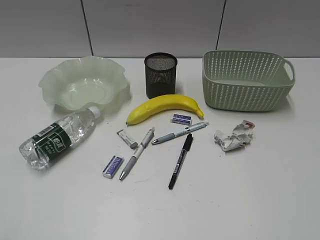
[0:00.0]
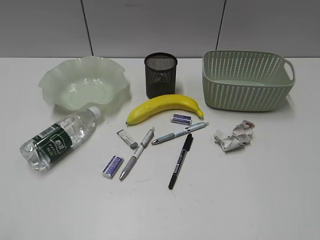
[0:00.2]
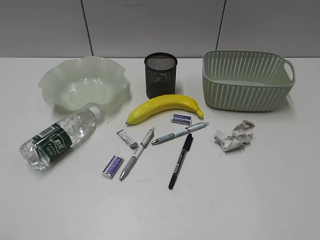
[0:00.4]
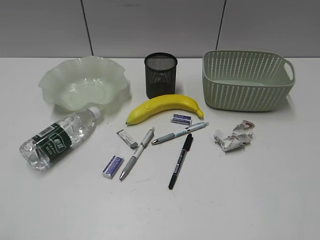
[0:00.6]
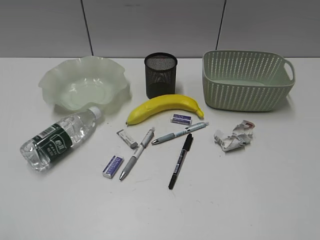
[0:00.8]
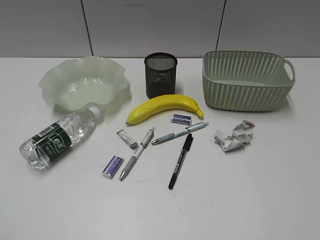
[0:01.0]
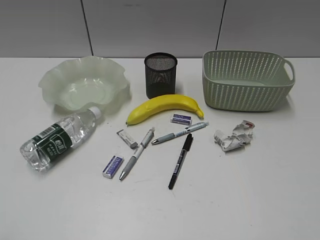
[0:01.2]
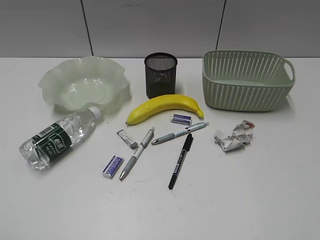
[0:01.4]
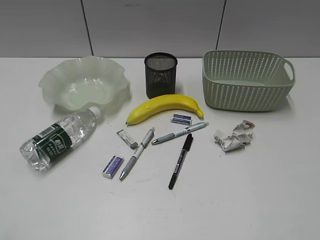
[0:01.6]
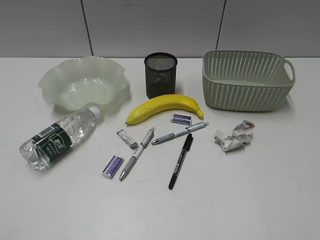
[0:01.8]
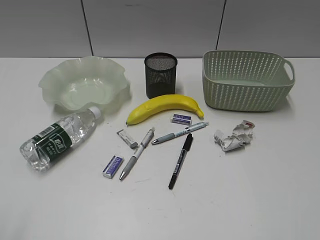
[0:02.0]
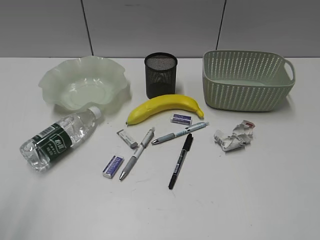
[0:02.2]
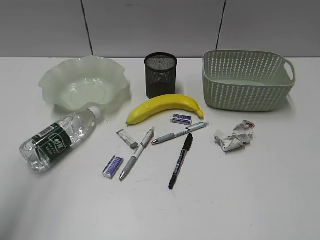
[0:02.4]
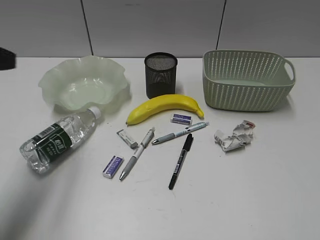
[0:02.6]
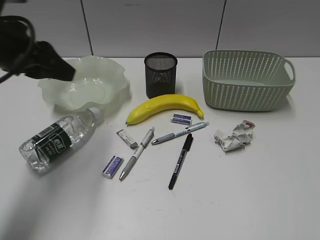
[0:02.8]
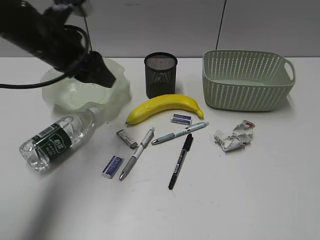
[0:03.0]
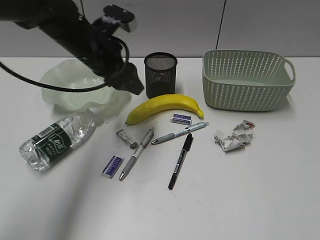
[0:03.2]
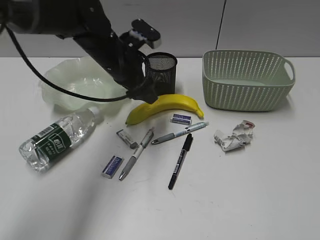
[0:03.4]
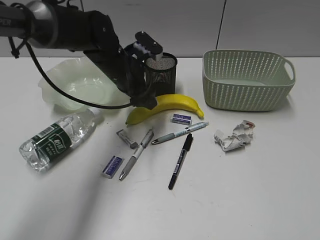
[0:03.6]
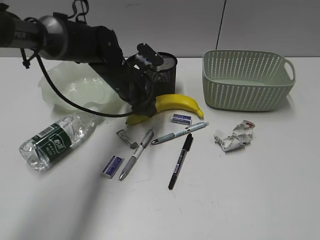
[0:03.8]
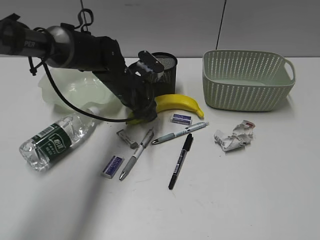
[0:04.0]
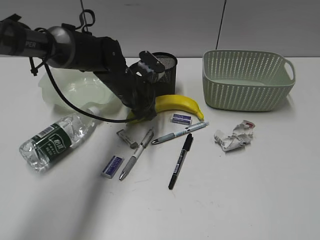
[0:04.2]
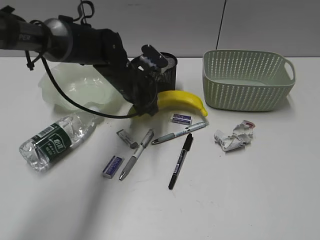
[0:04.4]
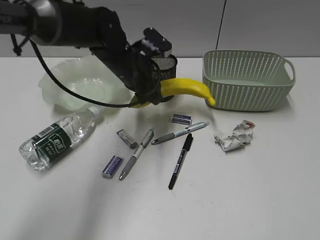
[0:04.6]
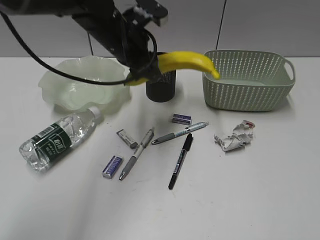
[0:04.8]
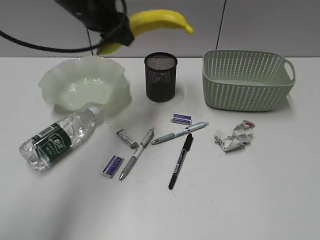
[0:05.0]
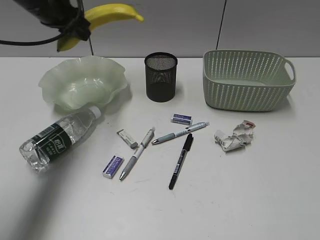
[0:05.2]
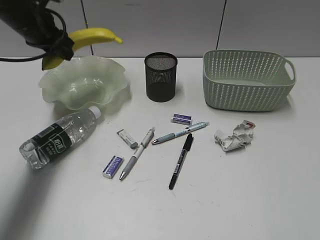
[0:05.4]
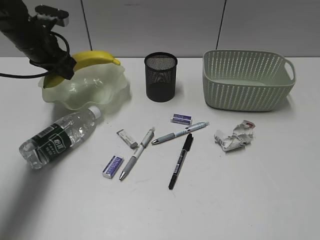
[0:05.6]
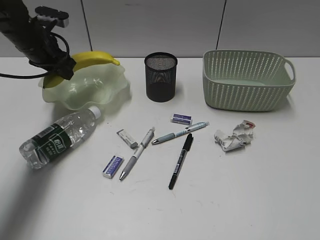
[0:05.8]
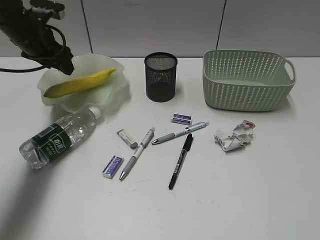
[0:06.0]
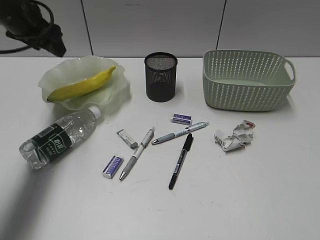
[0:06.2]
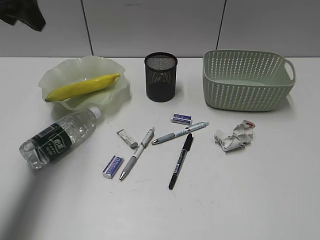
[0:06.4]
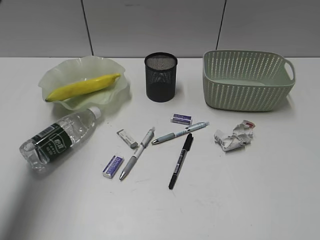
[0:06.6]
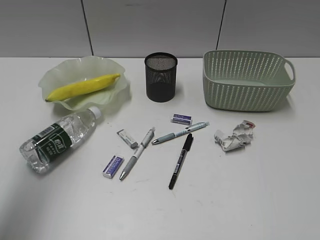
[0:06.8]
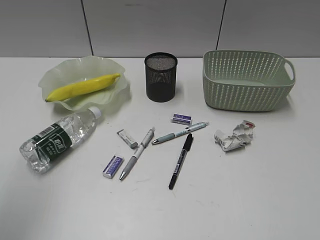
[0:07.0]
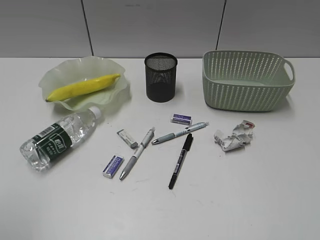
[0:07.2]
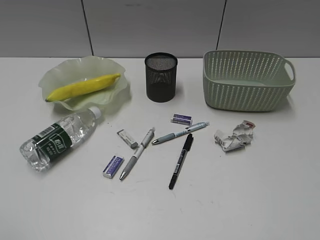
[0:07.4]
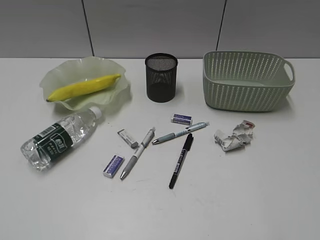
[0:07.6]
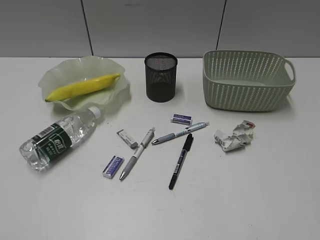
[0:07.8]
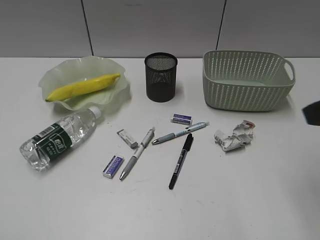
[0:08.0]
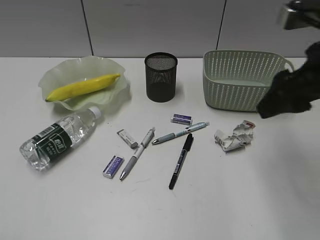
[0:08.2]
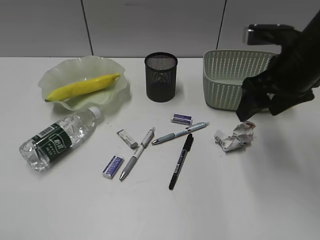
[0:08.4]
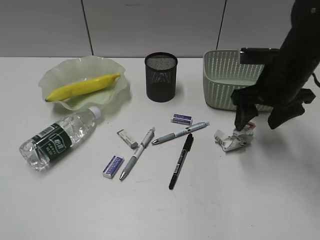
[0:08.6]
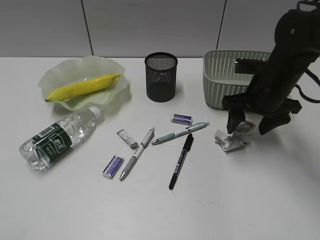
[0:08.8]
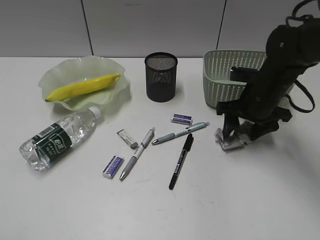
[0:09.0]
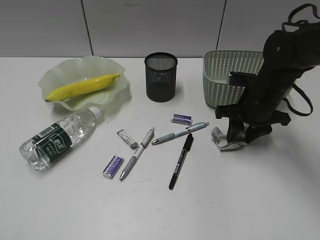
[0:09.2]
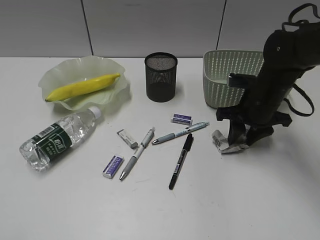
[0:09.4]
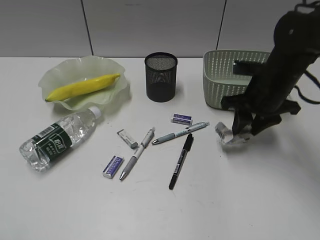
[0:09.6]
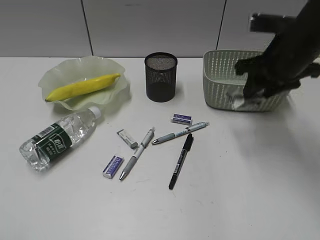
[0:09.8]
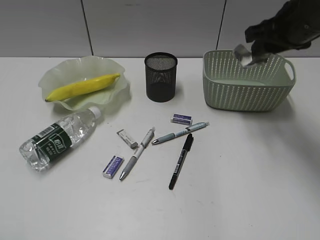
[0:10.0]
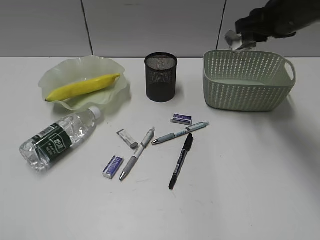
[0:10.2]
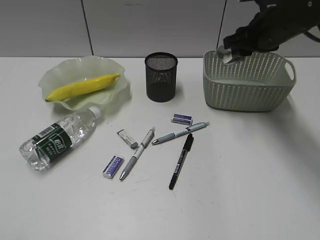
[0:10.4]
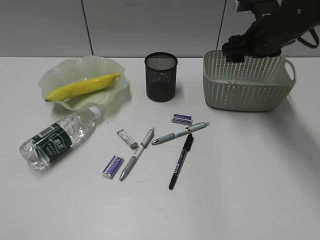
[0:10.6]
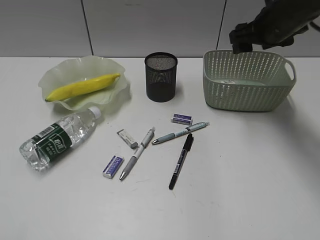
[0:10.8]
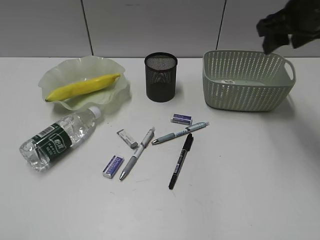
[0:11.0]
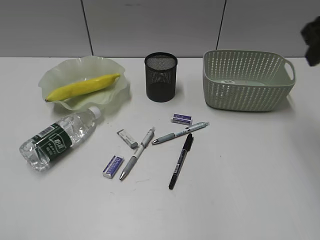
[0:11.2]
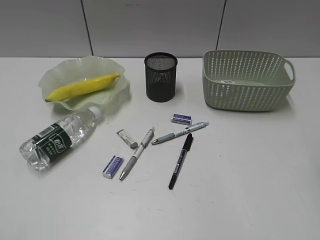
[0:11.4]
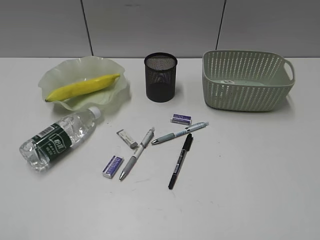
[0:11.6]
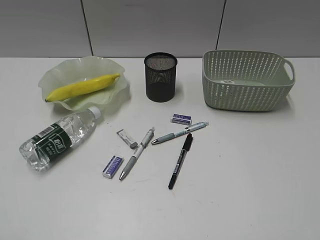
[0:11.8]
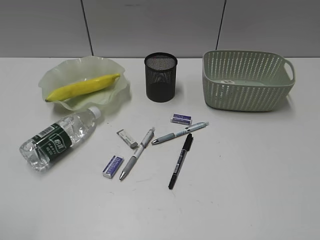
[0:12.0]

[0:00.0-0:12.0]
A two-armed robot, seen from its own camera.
Step, 0:01.8 to 0:04.2: Grasp the banana with left gripper.
Step, 0:04.4 to 0:06.0: Place the banana in the plate with left gripper.
Step, 0:06.2 to 0:09.2: Grasp the waste paper with right gripper.
Step, 0:09.4 to 0:10.6: Place the waste paper in the basket with right gripper.
0:01.6 to 0:03.0: The left gripper heads forward, covering some 35 cm, and opens up.
0:03.0 to 0:04.4: The left gripper heads downward, to the right and forward, covering approximately 20 cm.
0:04.4 to 0:06.0: The left gripper is displaced to the left and upward by roughly 20 cm.
0:06.0 to 0:07.6: The left gripper heads backward, covering approximately 50 cm.
0:07.6 to 0:09.0: The right gripper shifts about 40 cm forward and downward.
0:09.0 to 0:10.4: The right gripper travels upward and forward by roughly 10 cm, and closes.
0:10.4 to 0:12.0: The right gripper travels backward by some 40 cm, and opens and closes again.

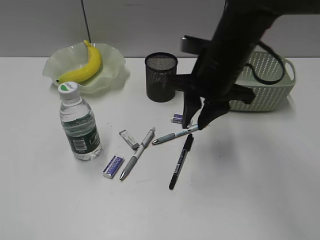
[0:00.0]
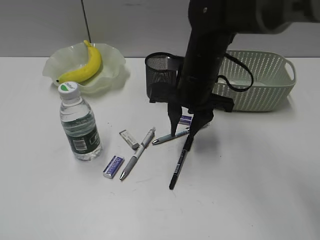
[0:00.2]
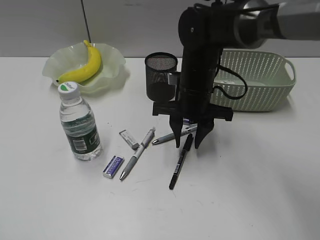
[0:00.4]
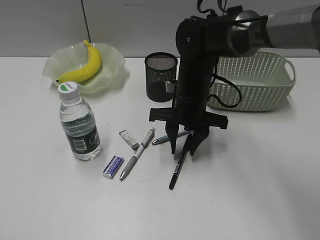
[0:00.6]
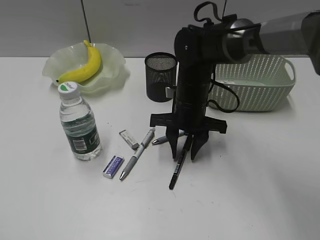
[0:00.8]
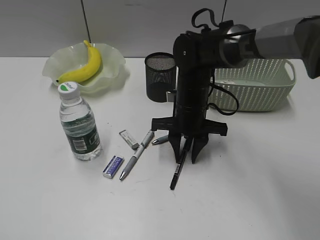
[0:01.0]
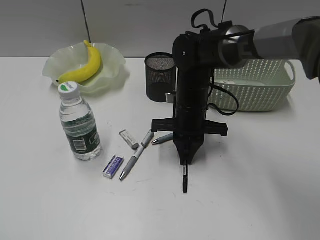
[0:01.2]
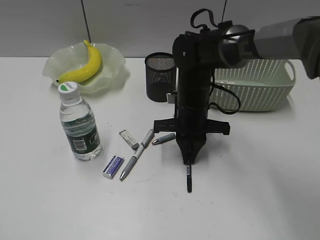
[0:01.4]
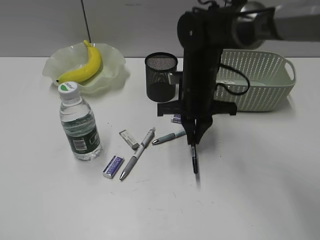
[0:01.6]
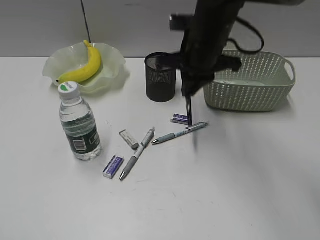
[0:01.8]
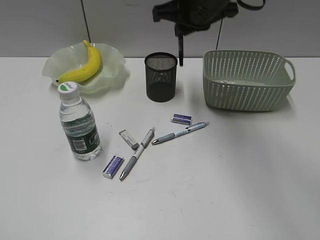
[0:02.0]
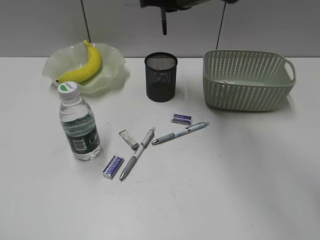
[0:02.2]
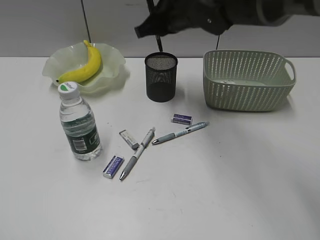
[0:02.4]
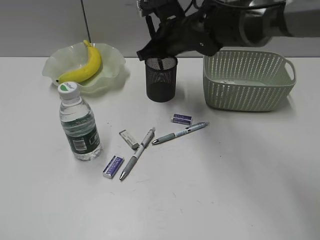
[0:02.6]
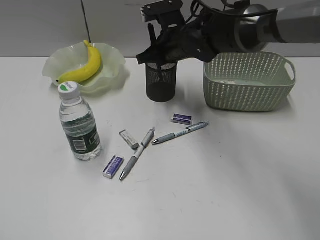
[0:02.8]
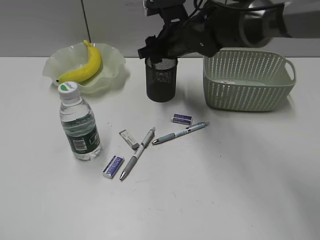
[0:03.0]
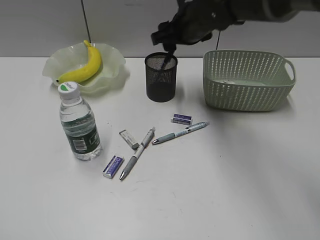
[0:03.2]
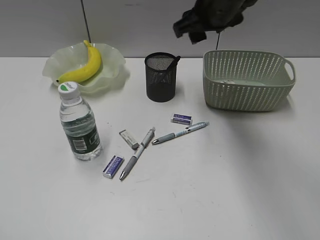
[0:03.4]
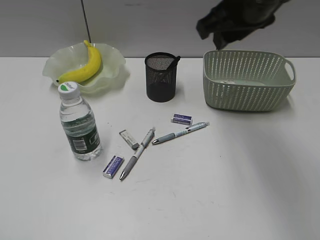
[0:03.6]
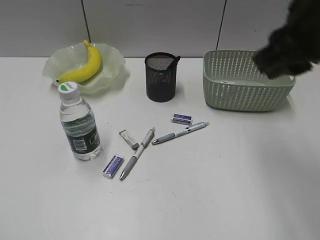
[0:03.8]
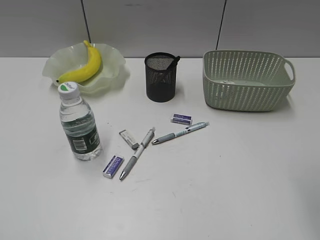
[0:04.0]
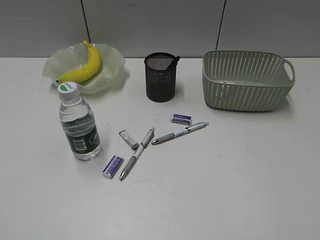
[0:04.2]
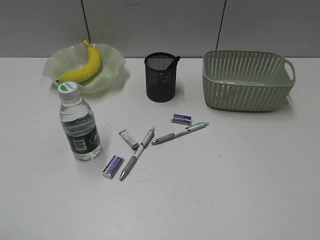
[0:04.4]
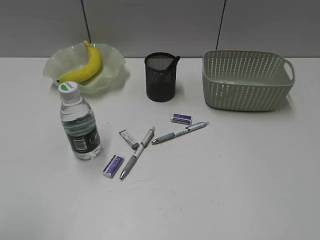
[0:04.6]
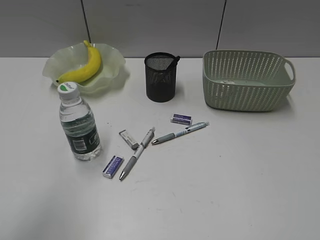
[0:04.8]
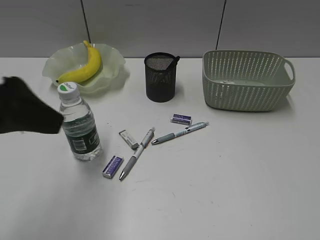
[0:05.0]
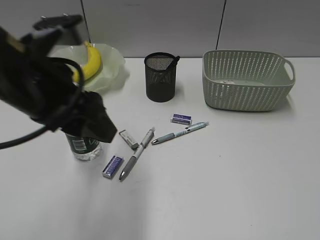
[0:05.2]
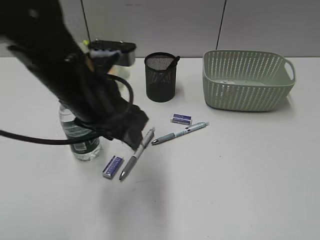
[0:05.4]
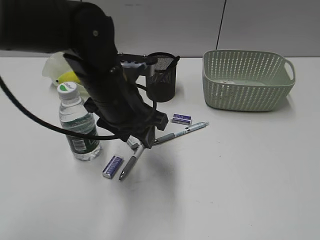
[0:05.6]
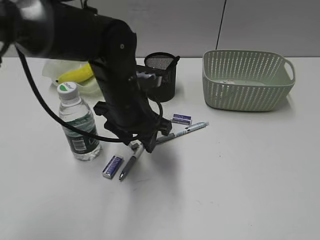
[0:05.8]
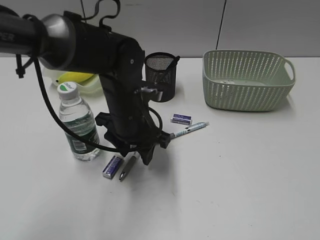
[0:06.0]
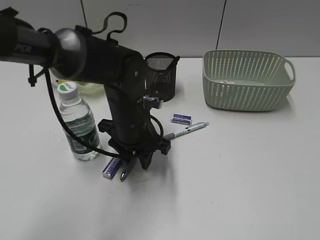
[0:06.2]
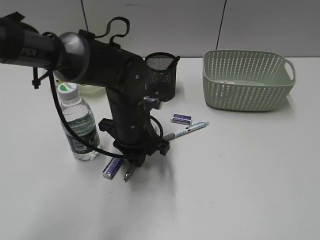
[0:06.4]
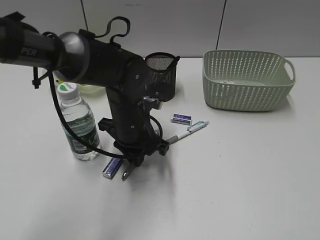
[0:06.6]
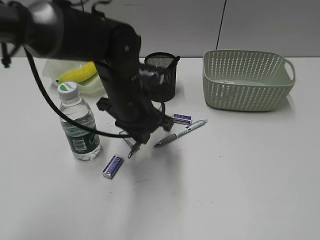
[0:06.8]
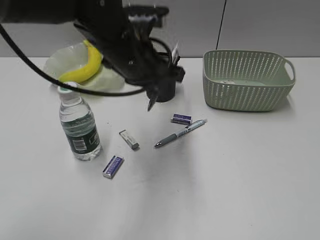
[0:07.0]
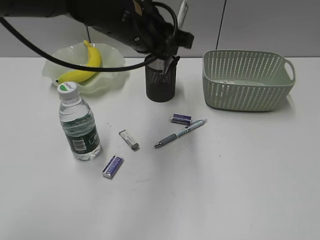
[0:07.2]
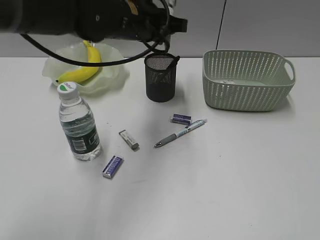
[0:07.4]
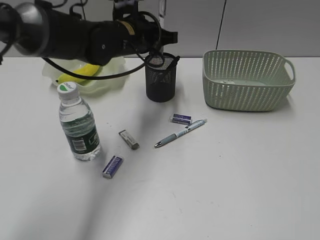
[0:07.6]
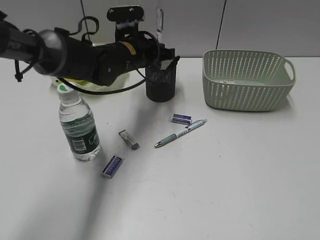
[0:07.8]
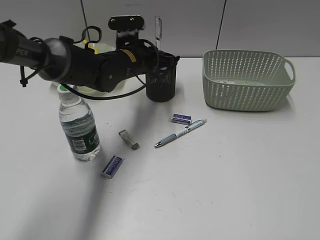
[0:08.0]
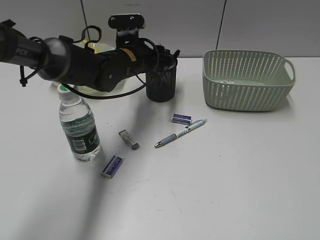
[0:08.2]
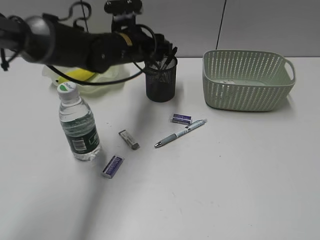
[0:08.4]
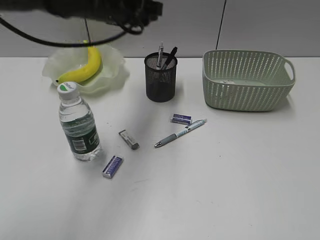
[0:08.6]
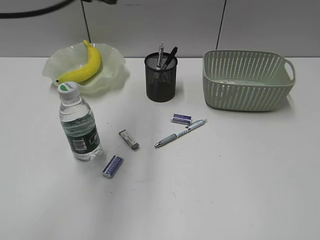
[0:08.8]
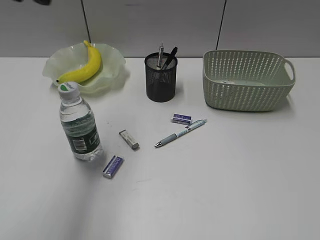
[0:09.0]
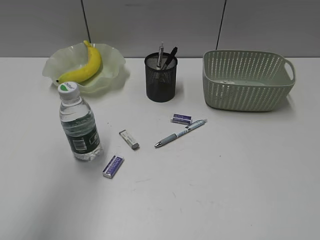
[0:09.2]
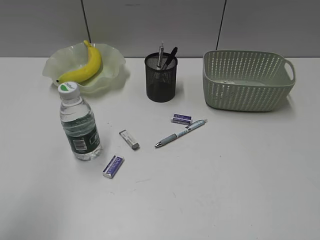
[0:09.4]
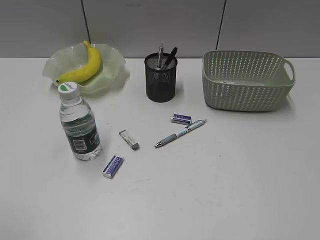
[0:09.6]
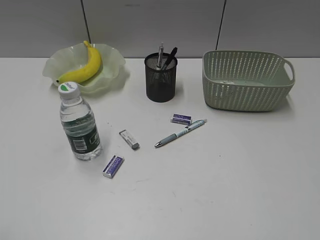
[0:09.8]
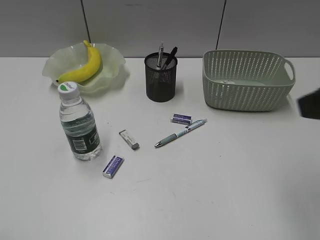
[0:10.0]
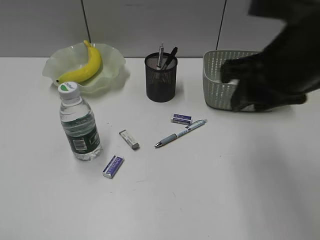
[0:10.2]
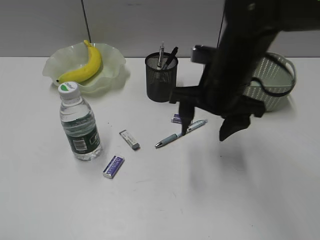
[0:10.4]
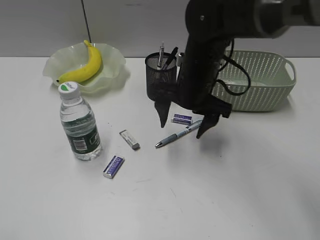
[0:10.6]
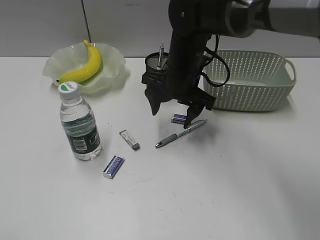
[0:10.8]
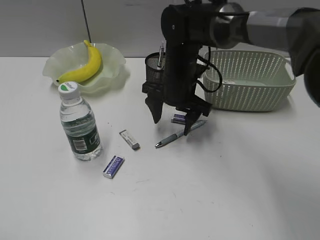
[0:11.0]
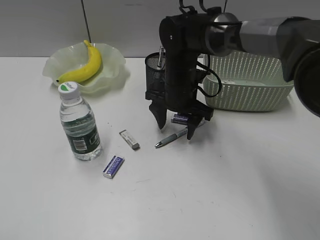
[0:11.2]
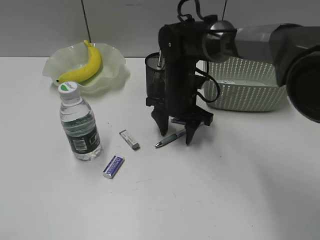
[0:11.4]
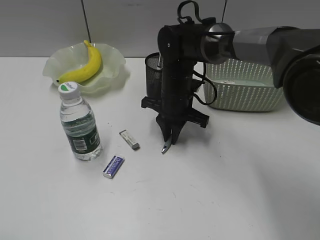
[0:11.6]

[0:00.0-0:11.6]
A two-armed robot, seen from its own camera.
Step, 0:01.4 to 0:03.0: Place the black pen in pen holder with right gripper.
Step, 0:03.2 to 0:06.6: Grasp the gray pen with left gripper.
Step, 0:06.8 to 0:08.2: Place the gray pen in pen holder with left gripper.
0:00.0 to 0:01.4: The right gripper heads downward, covering about 15 cm.
0:01.4 to 0:02.8: The right gripper heads forward and upward, covering some 10 cm.
0:02.8 to 0:04.4: The right gripper is displaced backward and to the right by approximately 50 cm, and opens, then closes again.
0:04.4 to 0:05.8: The left gripper shifts some 40 cm forward and to the right.
0:05.8 to 0:07.2: The left gripper shifts about 10 cm upward, and closes its fingers.
0:07.2 to 0:08.8: The left gripper is displaced upward and to the left by approximately 15 cm, and opens up.
0:08.8 to 0:10.2: The right gripper heads forward and to the left, covering some 30 cm. Meanwhile the left gripper shifts roughly 35 cm backward and to the left.
0:10.2 to 0:11.6: The right gripper heads downward, forward and to the left, covering roughly 30 cm, and opens and closes again.
